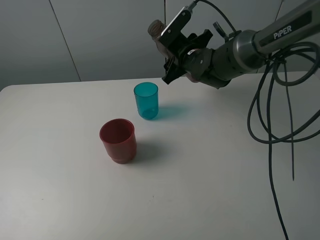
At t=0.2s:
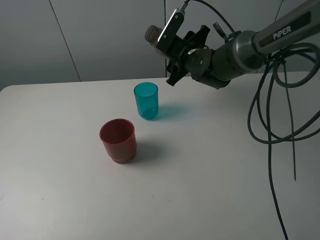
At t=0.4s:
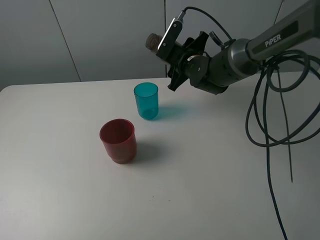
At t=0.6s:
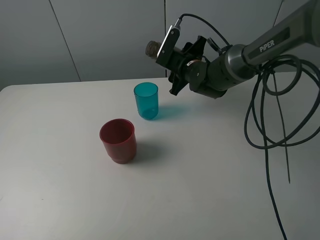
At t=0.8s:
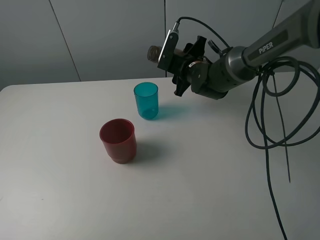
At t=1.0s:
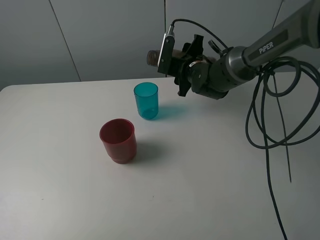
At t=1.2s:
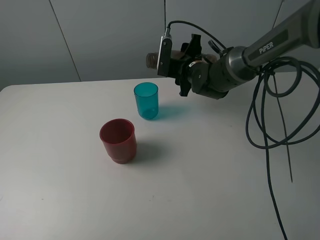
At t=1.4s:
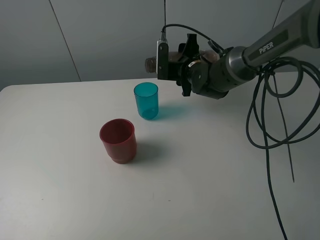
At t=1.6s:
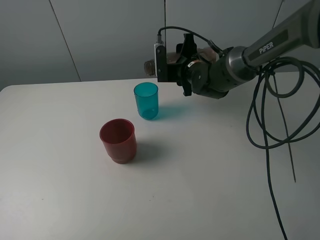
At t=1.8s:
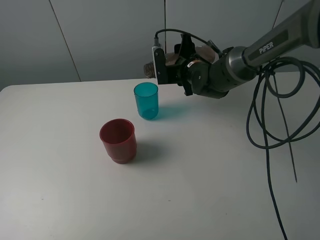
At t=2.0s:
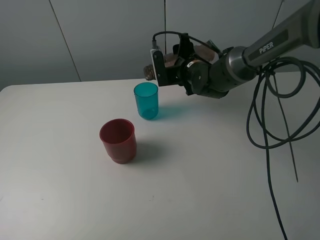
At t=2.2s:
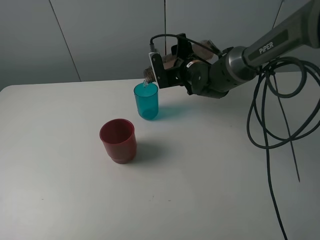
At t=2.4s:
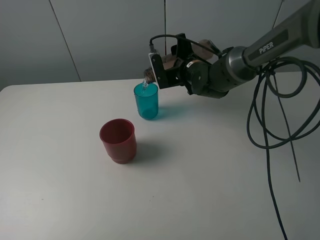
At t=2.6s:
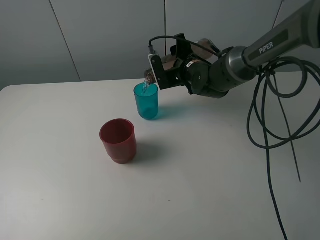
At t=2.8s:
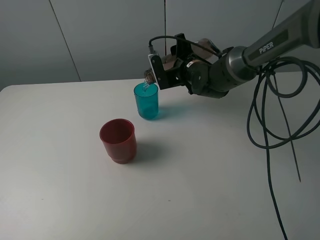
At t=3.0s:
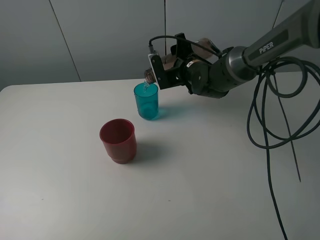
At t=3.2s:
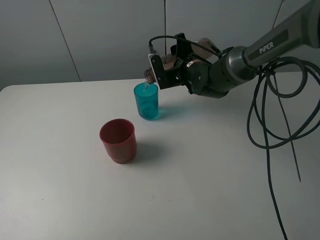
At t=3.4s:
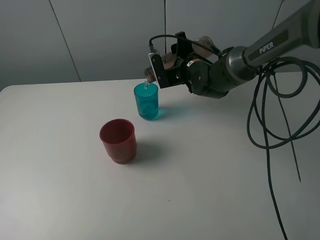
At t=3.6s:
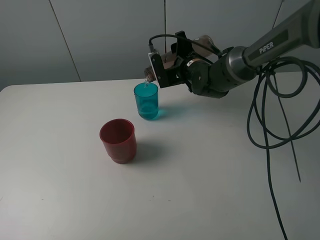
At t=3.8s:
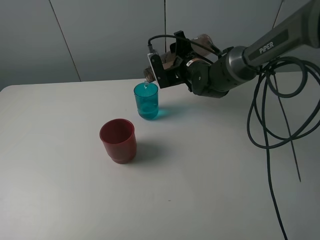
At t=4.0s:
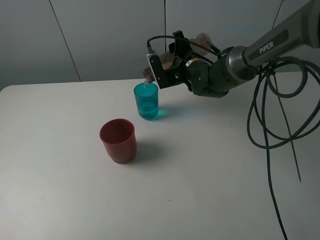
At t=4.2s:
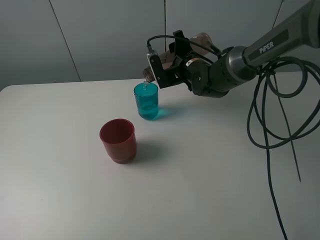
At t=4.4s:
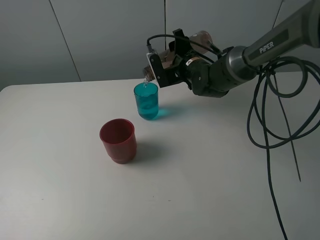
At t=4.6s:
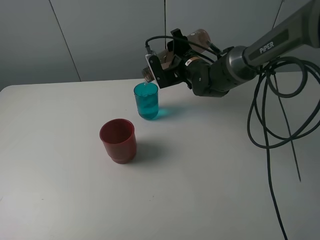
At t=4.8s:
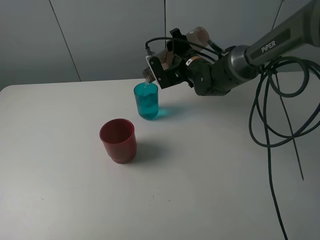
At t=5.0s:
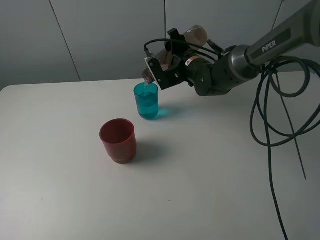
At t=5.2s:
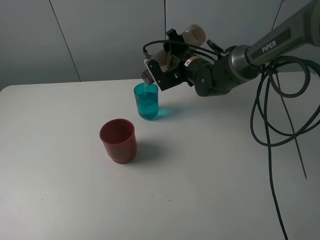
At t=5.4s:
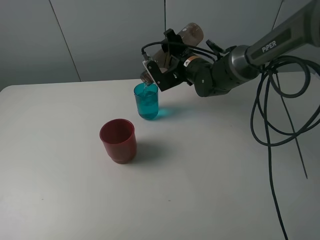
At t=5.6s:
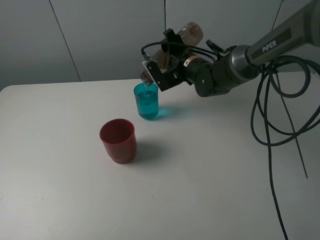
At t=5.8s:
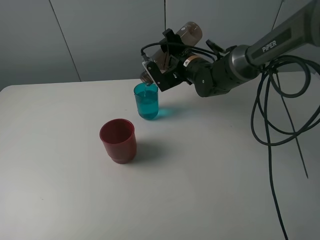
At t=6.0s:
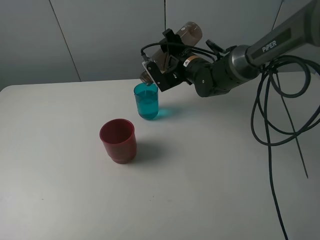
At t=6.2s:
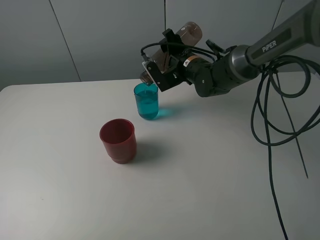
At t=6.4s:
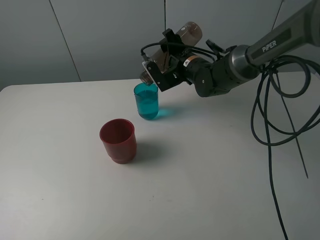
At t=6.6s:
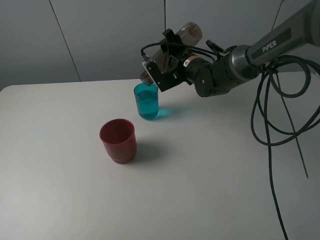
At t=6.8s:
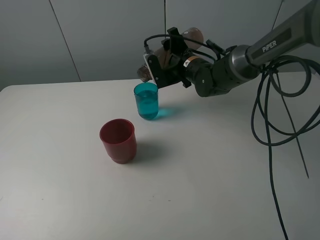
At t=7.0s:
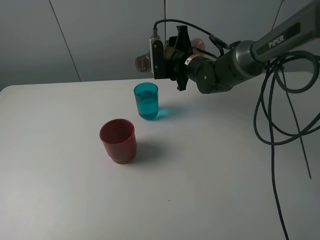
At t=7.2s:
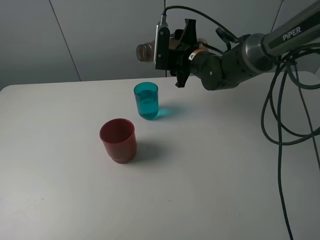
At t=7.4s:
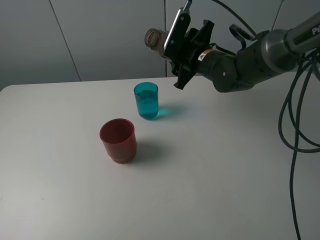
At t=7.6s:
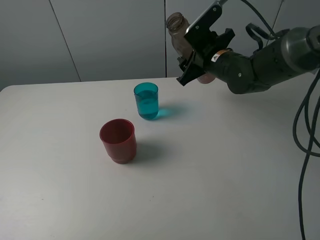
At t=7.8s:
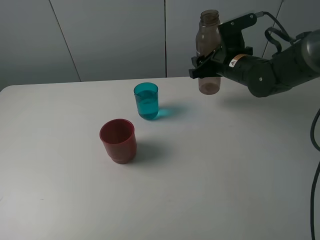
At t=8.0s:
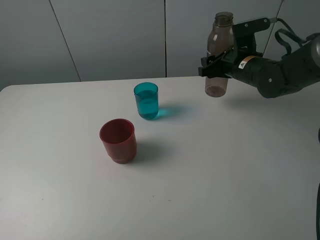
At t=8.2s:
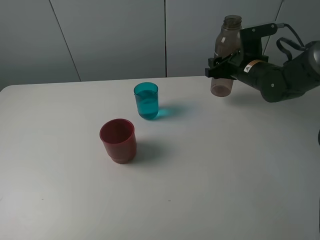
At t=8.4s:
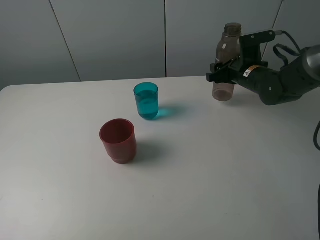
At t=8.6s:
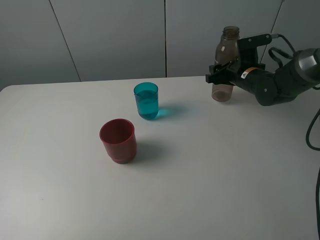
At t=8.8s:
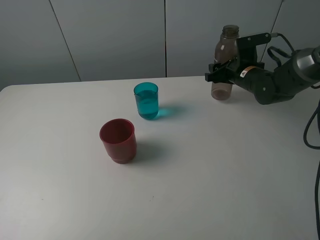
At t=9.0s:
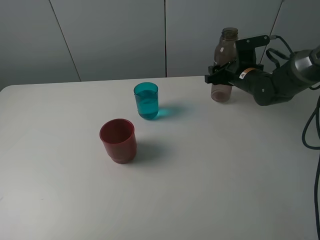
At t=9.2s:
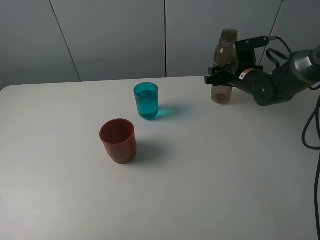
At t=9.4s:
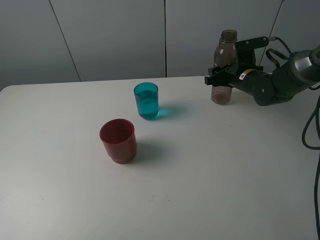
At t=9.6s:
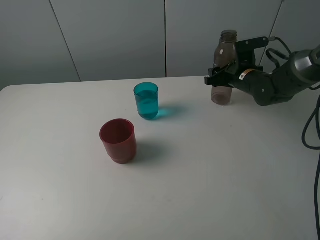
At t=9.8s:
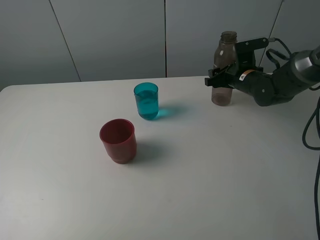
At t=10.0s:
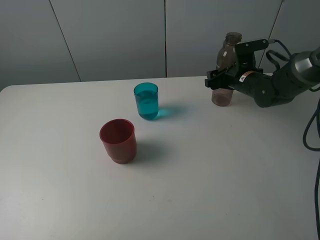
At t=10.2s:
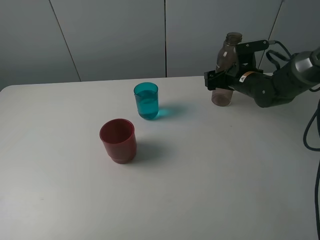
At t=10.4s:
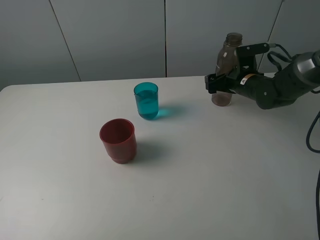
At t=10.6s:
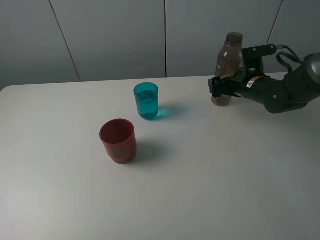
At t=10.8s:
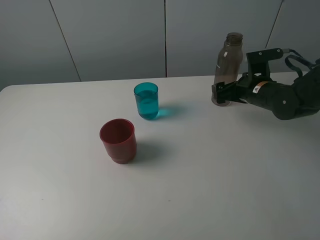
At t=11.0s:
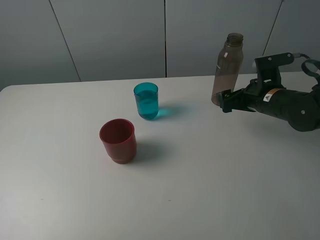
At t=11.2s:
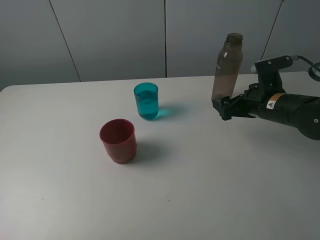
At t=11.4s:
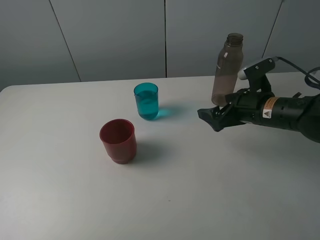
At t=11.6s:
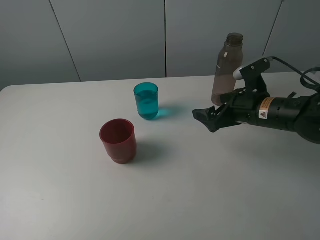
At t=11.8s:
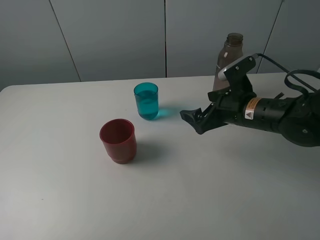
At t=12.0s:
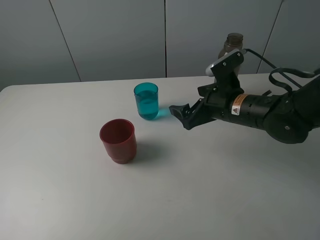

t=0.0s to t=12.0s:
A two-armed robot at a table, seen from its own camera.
Task of the whole recording: pick up the bottle and pour water into the cup, then pick up the cup containing water and pour it into another cup.
Step, t=0.0s to t=6.8s: Pour water from brown bottle to blue cup with the right gripper.
Step, t=7.0s to t=10.2s: Place the brown bottle with the right gripper.
t=1.6s to t=4.4s: The grippers stay close to where they were, moving slightly.
t=4.4s to t=6.0s: There are only small adjustments of the grippers.
t=6.0s to t=7.6s: The right gripper heads to the right, covering approximately 5 cm.
t=7.6s to t=9.0s: The right gripper is displaced to the right and downward by roughly 10 cm.
t=9.0s to t=10.4s: The right gripper opens its fingers.
t=10.4s to t=12.0s: The right gripper shifts roughly 15 cm backward and to the left.

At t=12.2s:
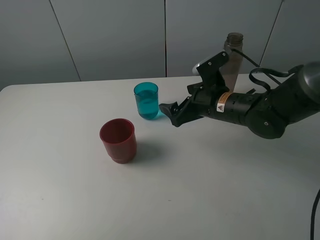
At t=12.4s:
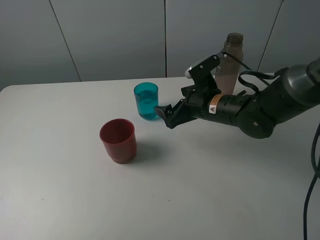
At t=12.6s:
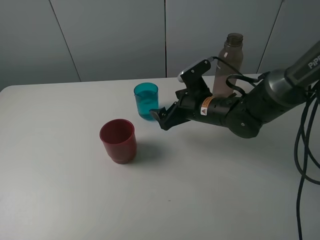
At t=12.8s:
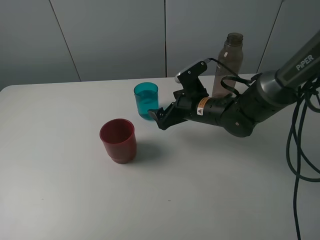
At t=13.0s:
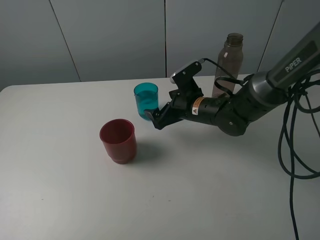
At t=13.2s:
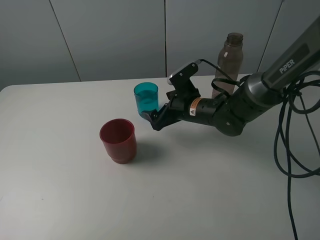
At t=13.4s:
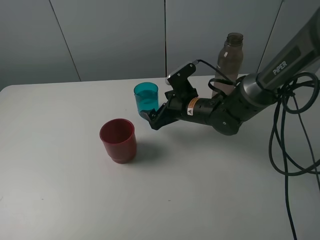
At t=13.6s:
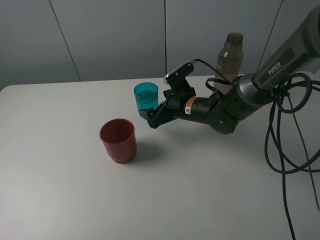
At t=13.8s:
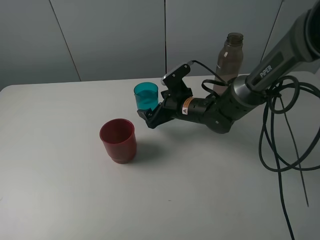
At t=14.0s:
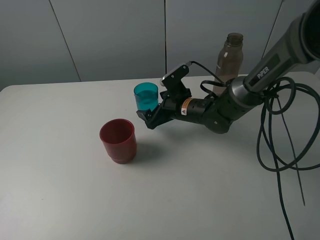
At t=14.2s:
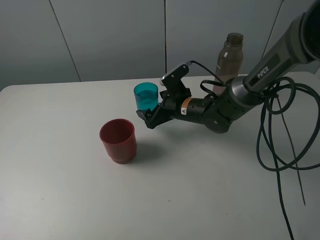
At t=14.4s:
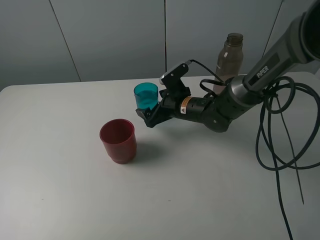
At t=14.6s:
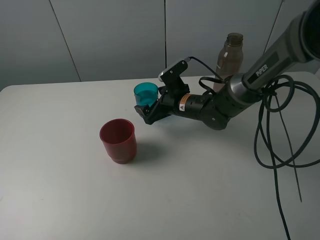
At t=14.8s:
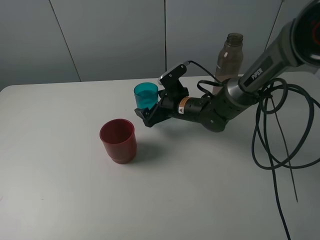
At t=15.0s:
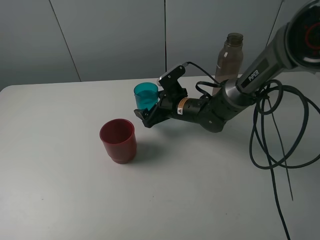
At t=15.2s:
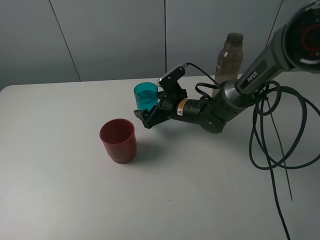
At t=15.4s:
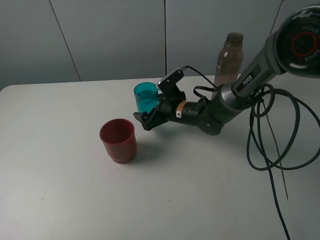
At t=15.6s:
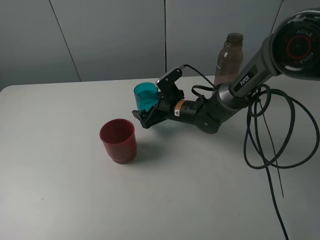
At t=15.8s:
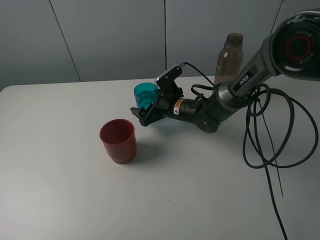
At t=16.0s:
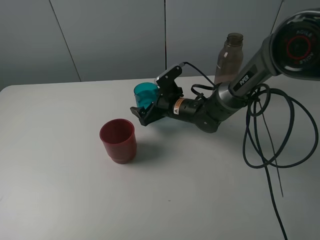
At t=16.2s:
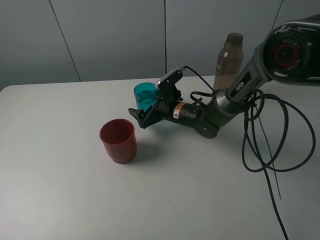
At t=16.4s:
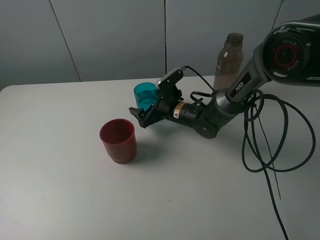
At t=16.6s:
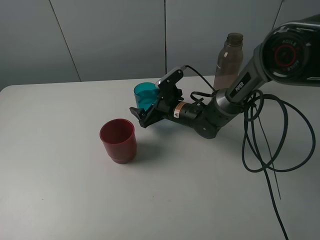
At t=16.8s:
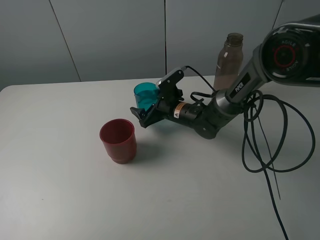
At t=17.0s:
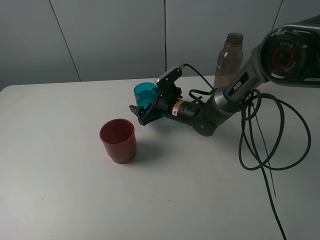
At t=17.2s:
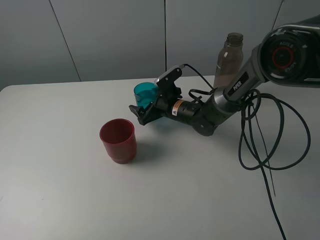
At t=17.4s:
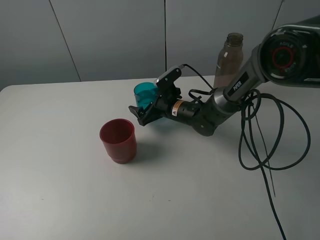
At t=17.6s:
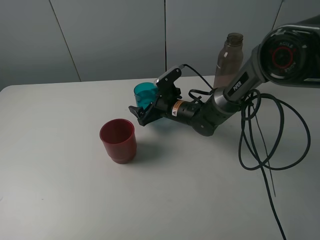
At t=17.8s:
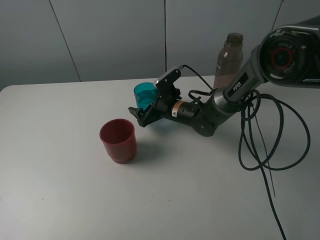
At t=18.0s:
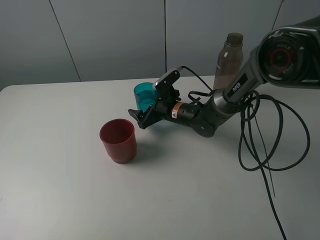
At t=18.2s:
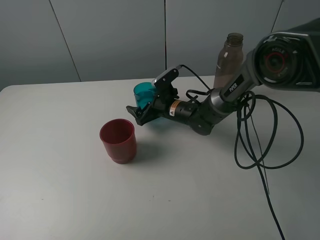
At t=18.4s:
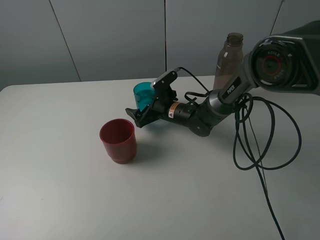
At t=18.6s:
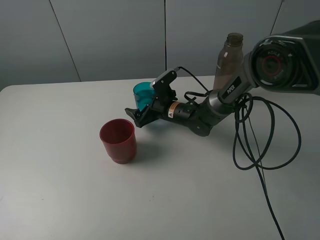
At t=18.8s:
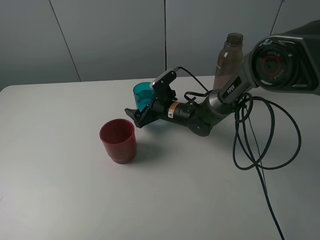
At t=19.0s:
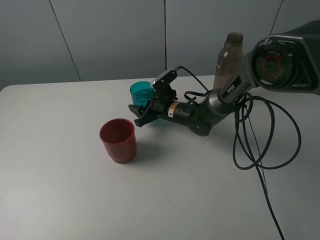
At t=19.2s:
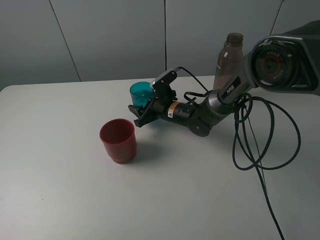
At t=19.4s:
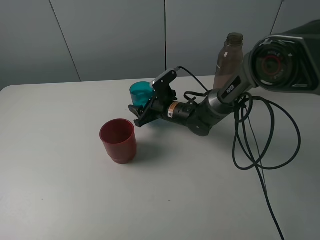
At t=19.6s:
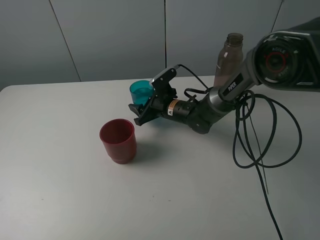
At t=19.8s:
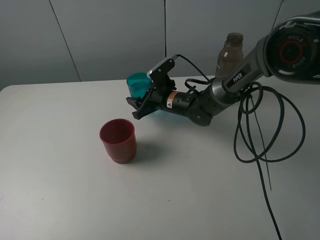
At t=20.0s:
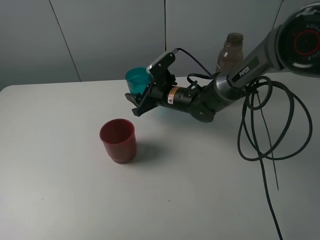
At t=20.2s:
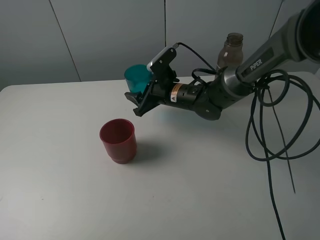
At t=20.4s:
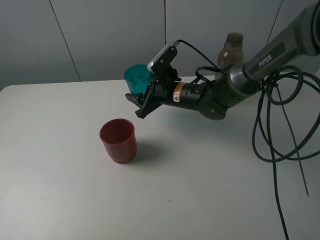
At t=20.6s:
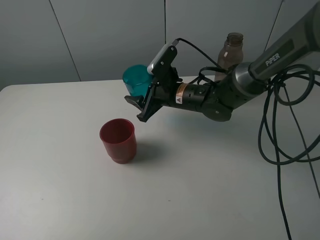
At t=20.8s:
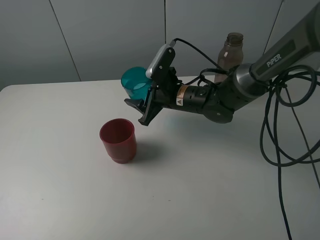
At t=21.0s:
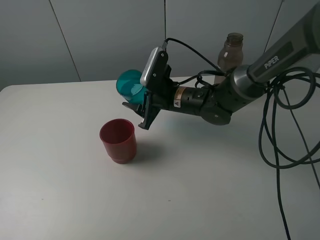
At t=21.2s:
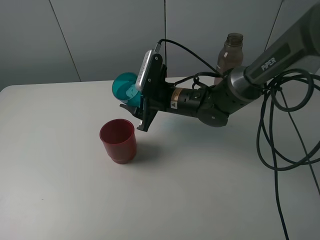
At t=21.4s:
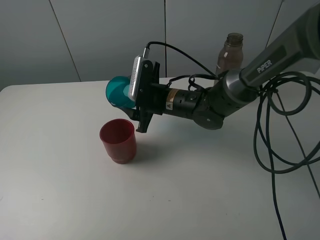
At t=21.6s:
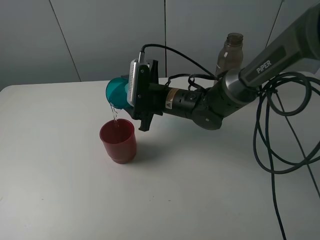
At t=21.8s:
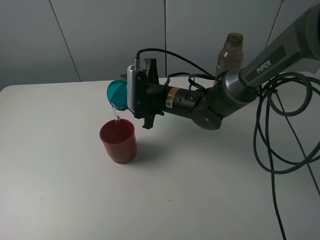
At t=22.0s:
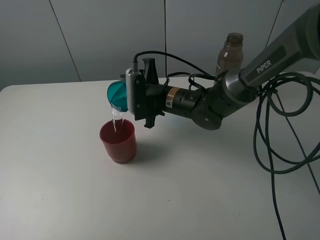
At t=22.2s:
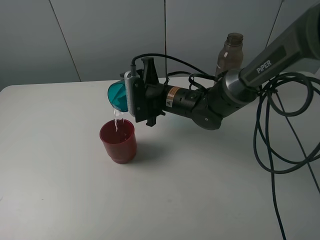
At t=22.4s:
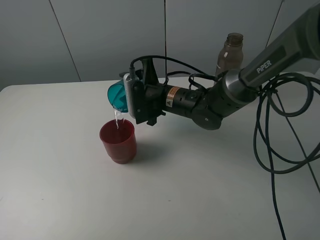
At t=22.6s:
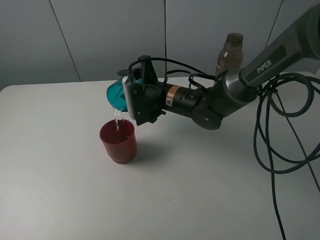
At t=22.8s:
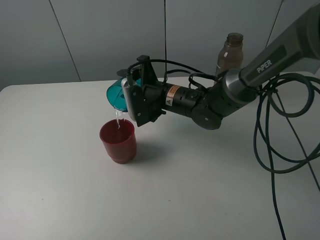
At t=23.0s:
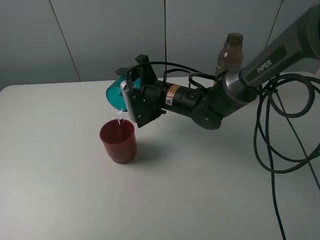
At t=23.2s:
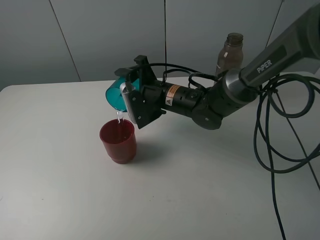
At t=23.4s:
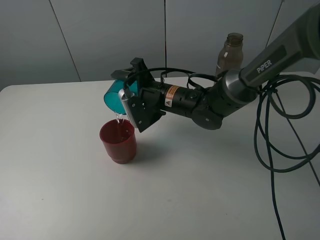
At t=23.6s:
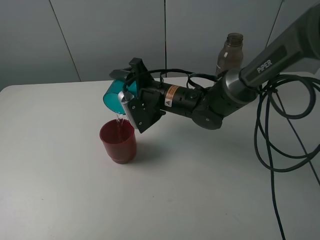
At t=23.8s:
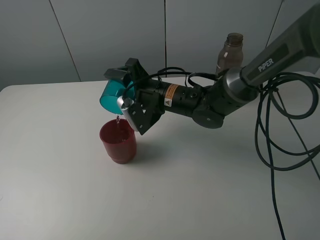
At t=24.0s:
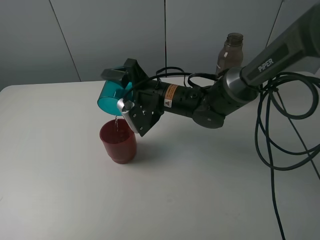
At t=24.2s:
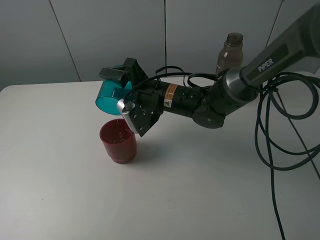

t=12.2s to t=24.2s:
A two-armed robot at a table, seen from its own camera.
Task of the whole recording: pick up the bottle and pour water into the cup, then pick up the cup containing water and pour it into another cup.
Step, t=12.2s to t=19.2s: Grasp the blue cup with the right gripper.
t=12.2s to t=13.8s: The right gripper shifts roughly 10 cm downward, forward and to the left.
t=13.8s to t=18.2s: There are only small adjustments of the grippers.
t=18.2s to t=19.8s: The right gripper closes its fingers.
t=19.8s to t=21.2s: The right gripper heads backward, covering some 5 cm.
